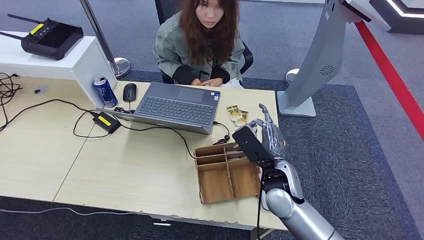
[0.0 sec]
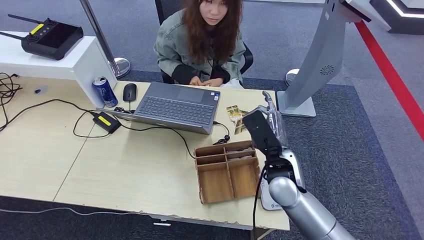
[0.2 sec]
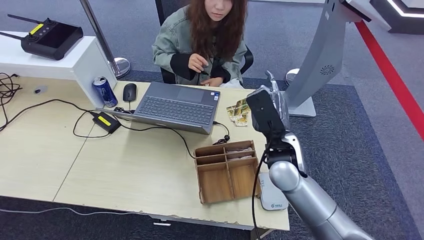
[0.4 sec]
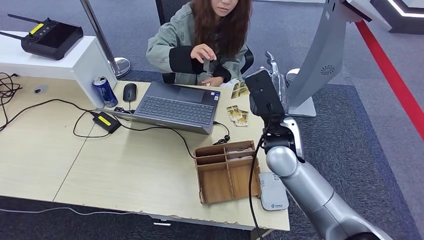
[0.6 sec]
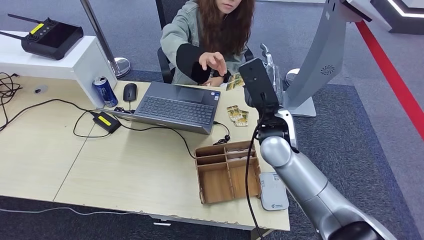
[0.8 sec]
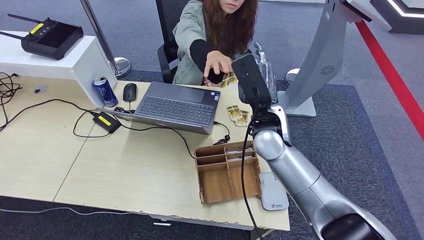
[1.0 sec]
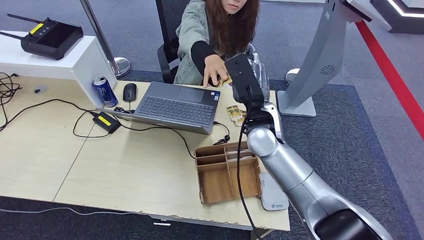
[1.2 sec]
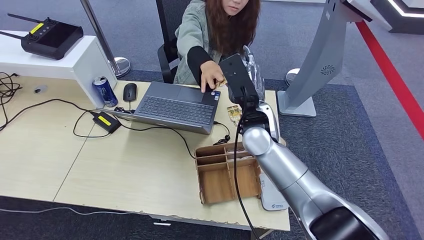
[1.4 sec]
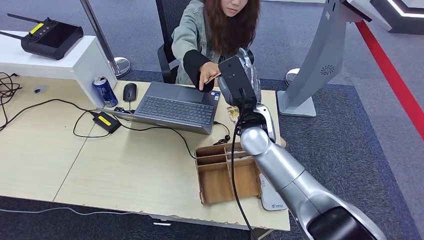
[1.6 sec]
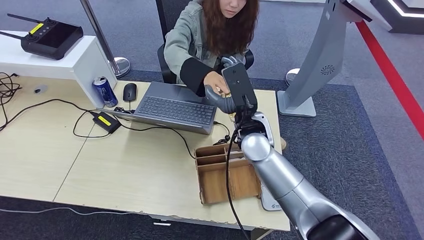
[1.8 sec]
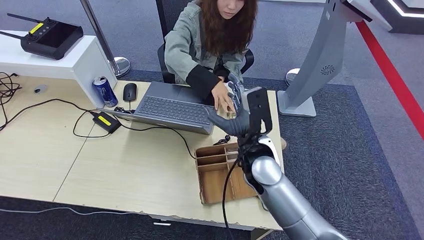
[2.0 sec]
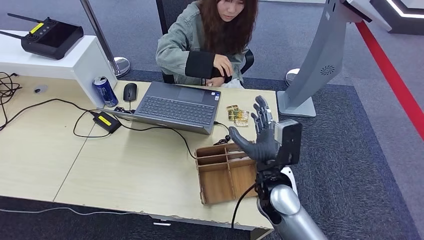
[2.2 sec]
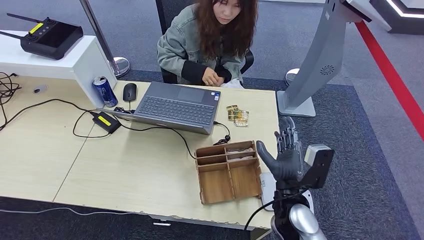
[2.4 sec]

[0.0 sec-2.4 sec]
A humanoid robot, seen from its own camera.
Step, 0.0 sec to 2.4 sec: Hand the room key to the person.
0.0 sec to 1.2 sec: The right hand goes some 15 cm upward, forward and to the left.
1.2 sec to 2.4 sec: The right hand shifts approximately 20 cm backward and downward.
